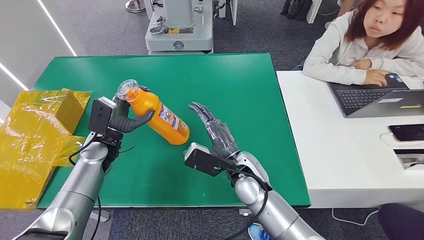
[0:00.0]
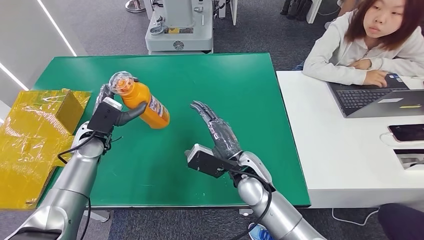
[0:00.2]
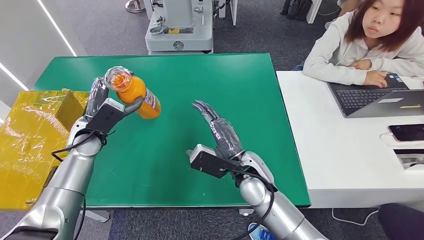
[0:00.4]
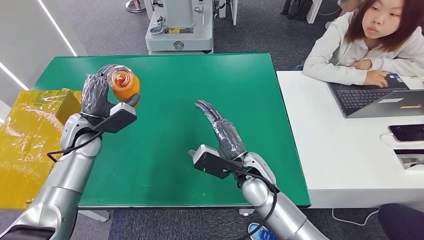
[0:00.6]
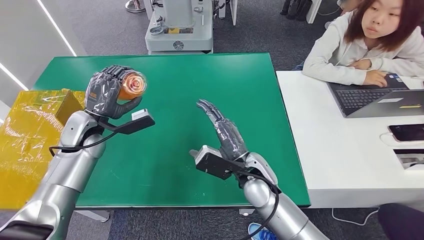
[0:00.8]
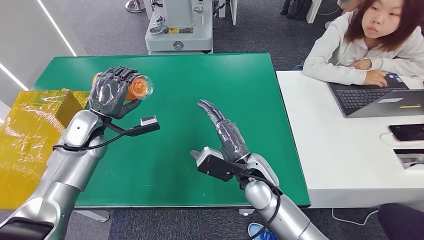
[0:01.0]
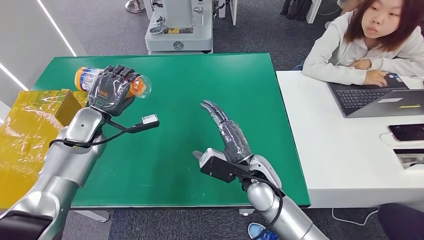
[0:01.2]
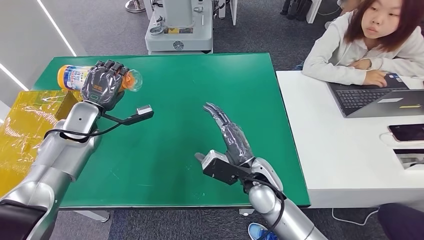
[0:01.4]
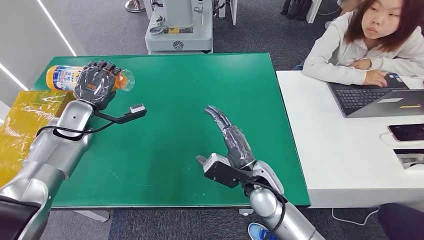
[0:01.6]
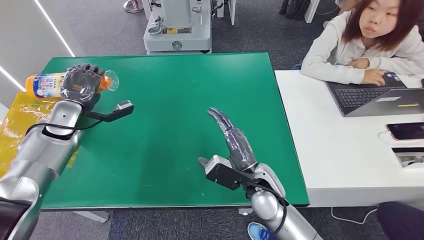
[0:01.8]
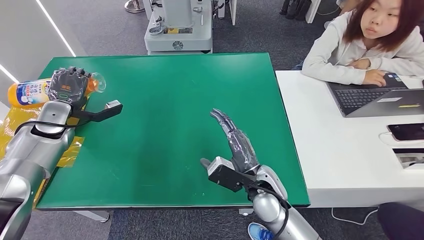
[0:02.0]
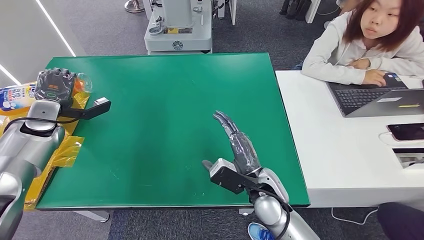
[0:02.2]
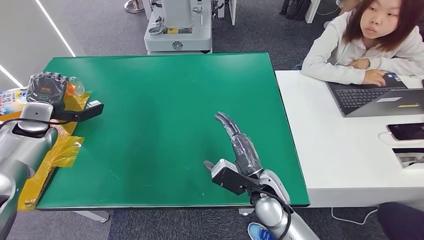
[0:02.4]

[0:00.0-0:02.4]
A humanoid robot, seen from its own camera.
Step, 0:00.0 to 0:02.4: Turn the bottle to the front side.
0:00.0 to 0:01.2: The left hand travels upward by roughly 5 cm.
